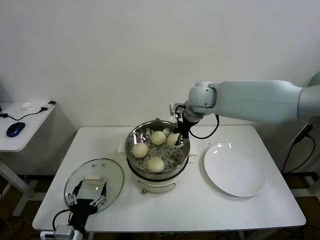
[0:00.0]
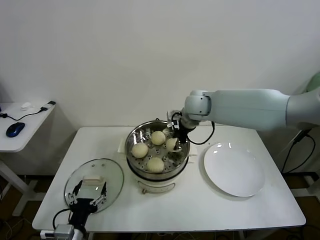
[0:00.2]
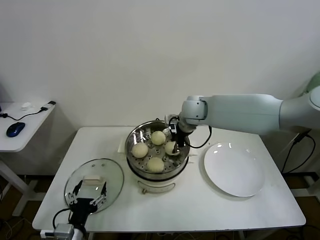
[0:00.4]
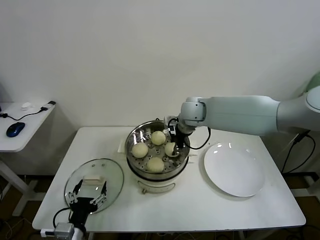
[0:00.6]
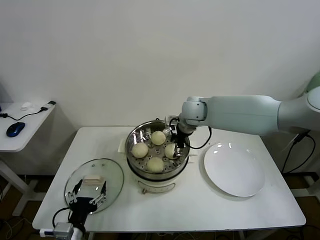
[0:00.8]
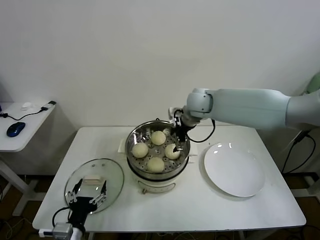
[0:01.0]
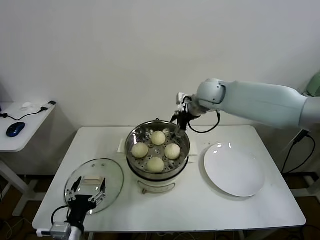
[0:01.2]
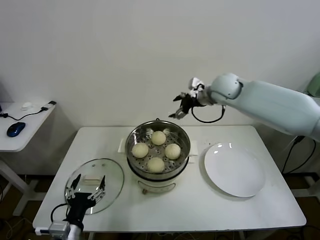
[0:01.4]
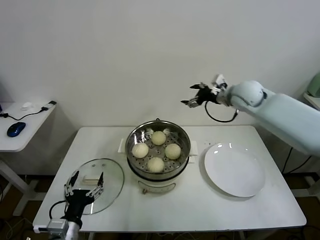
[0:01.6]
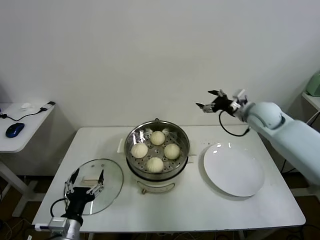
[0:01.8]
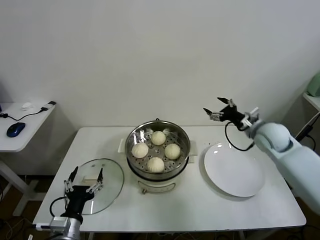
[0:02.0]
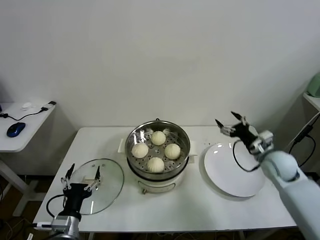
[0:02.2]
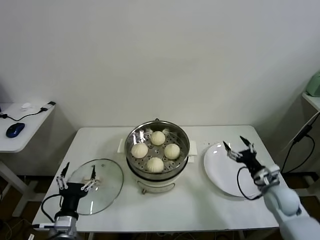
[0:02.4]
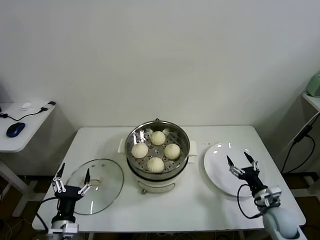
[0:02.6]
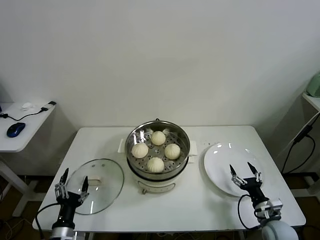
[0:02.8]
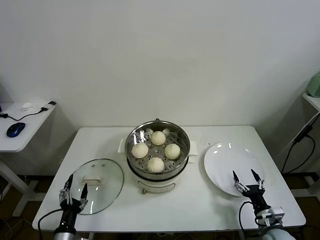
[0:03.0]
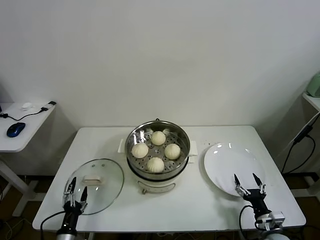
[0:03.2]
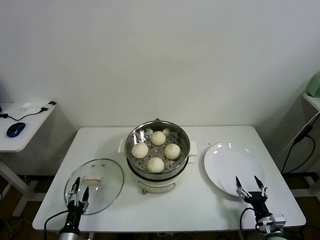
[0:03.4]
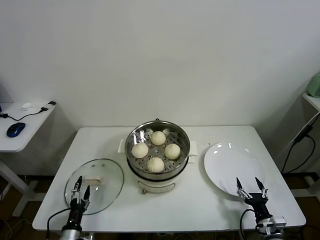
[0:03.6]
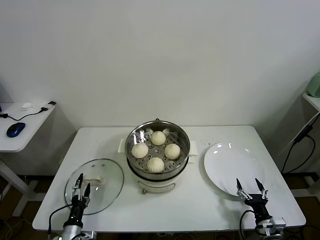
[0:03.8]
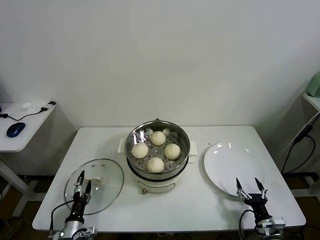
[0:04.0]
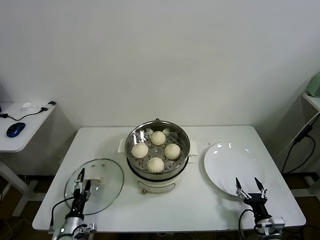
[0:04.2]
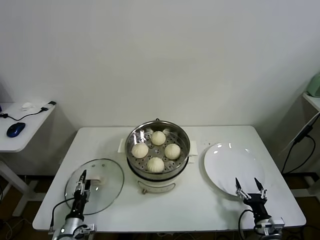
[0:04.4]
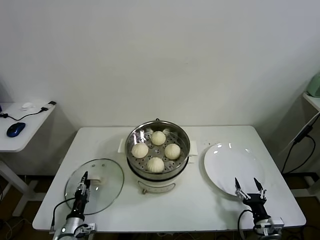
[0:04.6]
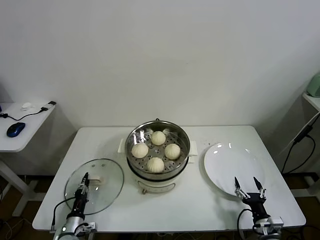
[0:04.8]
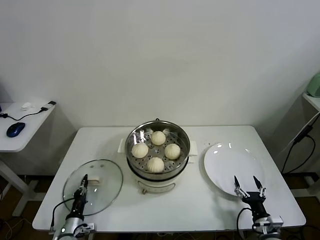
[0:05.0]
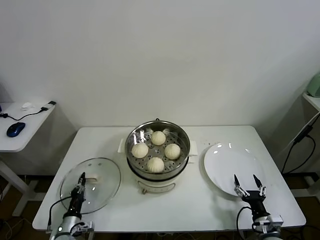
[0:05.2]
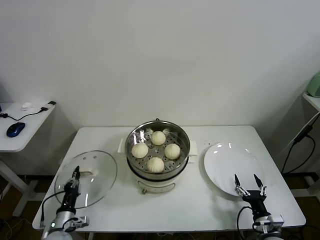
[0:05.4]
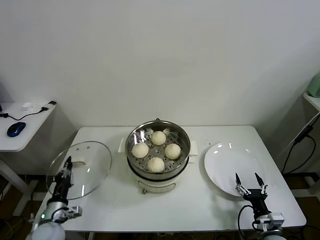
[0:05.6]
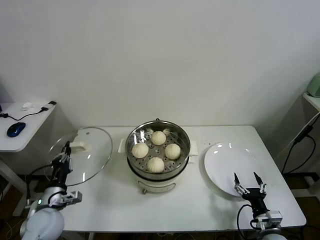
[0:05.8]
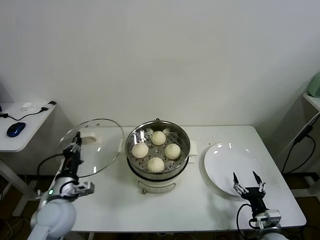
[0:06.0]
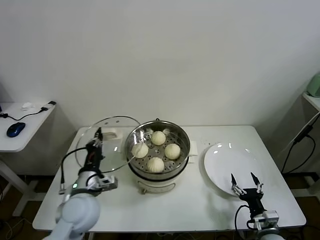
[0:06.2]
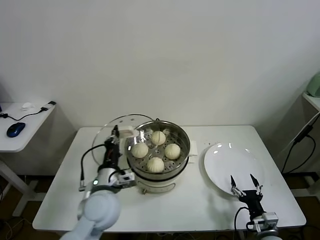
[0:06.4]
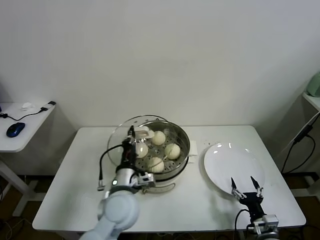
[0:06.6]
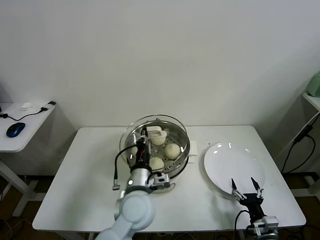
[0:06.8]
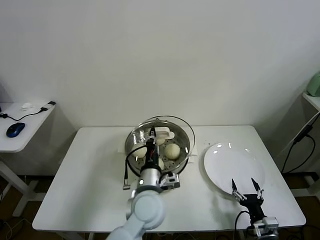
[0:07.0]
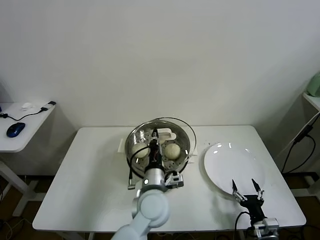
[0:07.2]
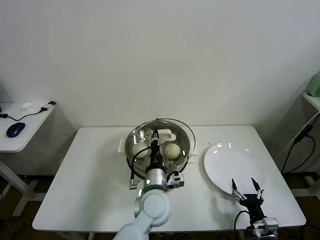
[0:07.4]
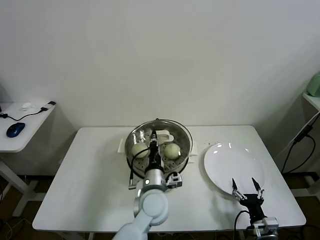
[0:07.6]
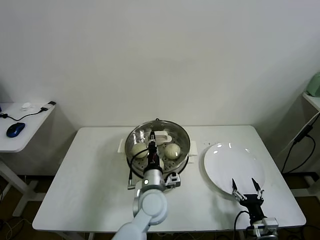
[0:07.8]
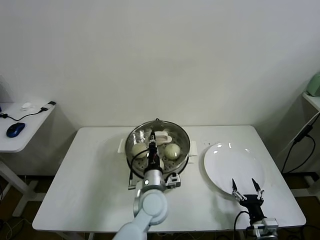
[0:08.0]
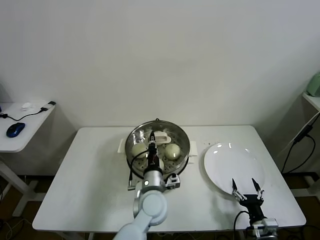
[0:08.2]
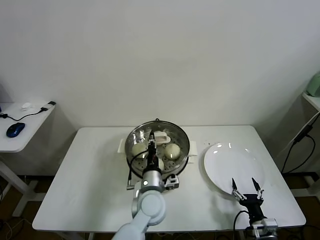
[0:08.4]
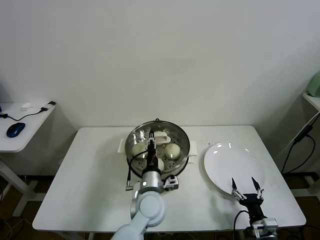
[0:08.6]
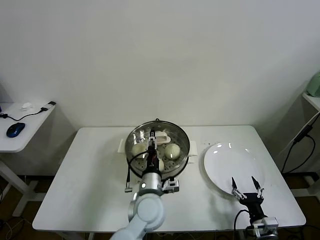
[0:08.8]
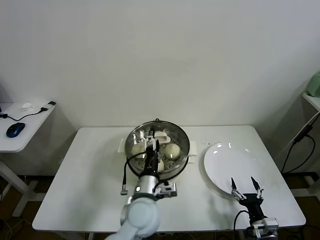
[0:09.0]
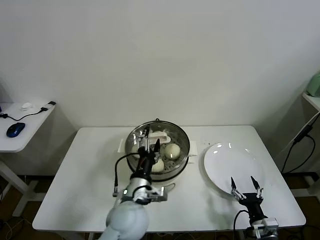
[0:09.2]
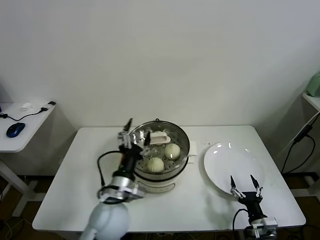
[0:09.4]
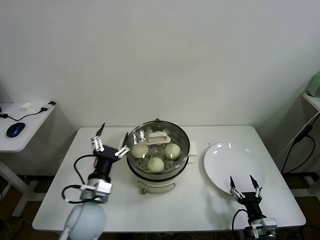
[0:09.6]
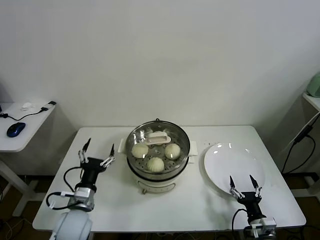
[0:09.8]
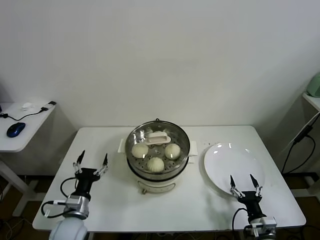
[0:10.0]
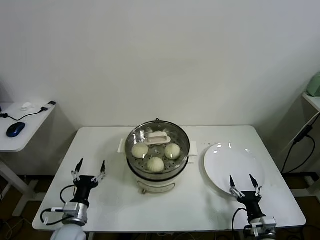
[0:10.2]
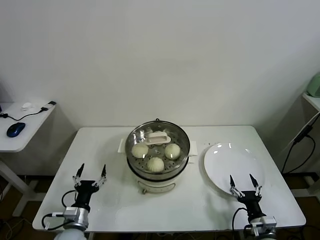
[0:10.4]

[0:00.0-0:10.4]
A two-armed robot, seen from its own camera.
Task of the whole recording: take steamed baozi put them in steamer.
Step, 0:01.0 to 0:05.0: Grasp the pot lid with left gripper.
Step, 0:05.2 to 0:09.0: Place the pot lid on the steamer with left gripper.
0:00.0 to 0:01.4: The right gripper heads to the right, covering roughly 10 cm, and opens.
0:01.4 to 0:03.0: The left gripper is displaced downward and to the left by some 15 cm. The right gripper travels downward, backward and to the right by about 50 cm.
0:03.0 to 0:04.4: The left gripper travels downward and forward by approximately 10 cm.
0:04.4 to 0:06.0: The left gripper moves upward, some 20 cm, and closes.
0:06.0 to 0:07.4: The left gripper shifts about 30 cm to the right.
0:07.4 to 0:09.0: The left gripper opens.
0:09.0 to 0:10.4: The left gripper heads to the left and downward, covering some 30 cm.

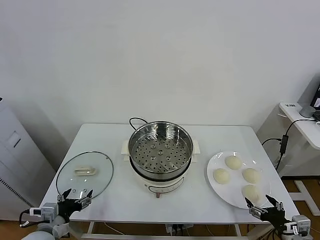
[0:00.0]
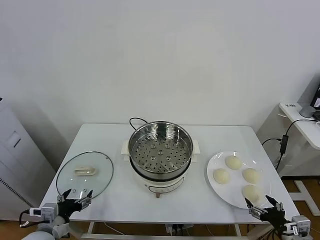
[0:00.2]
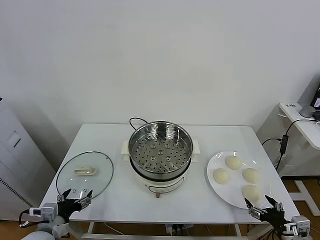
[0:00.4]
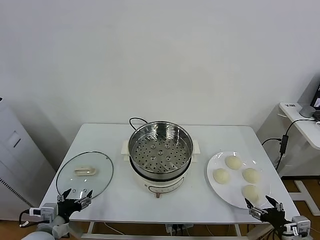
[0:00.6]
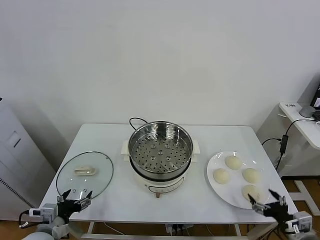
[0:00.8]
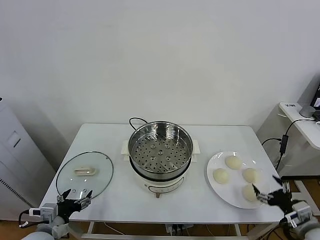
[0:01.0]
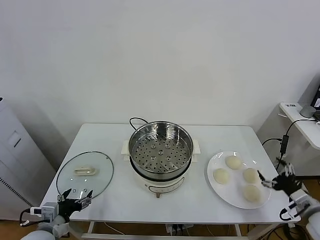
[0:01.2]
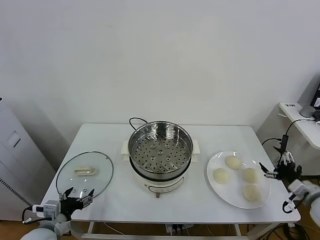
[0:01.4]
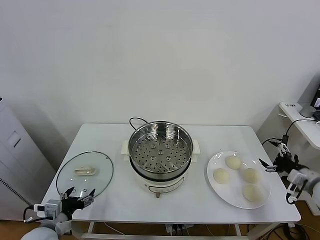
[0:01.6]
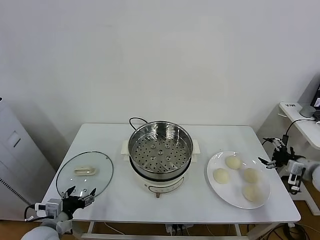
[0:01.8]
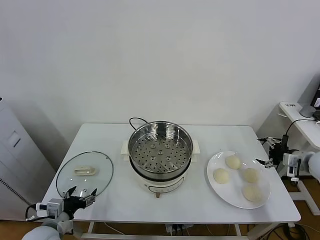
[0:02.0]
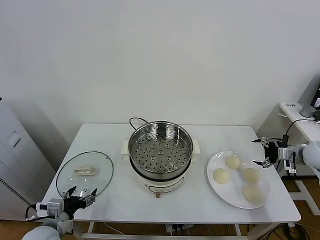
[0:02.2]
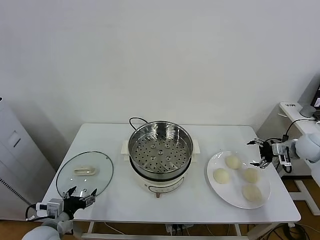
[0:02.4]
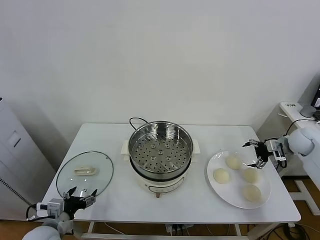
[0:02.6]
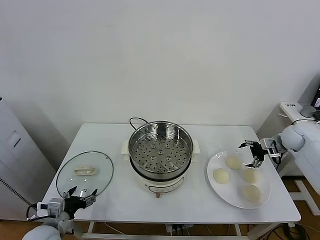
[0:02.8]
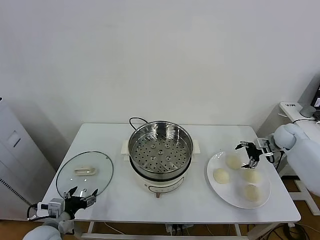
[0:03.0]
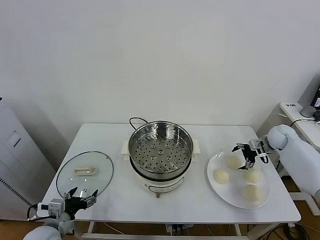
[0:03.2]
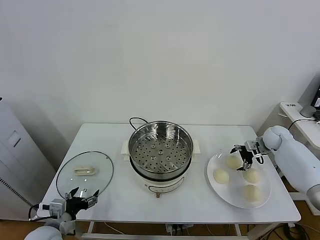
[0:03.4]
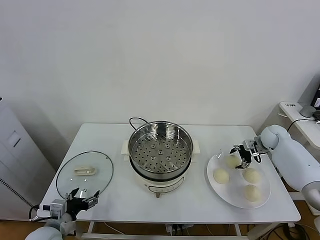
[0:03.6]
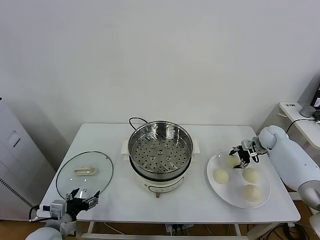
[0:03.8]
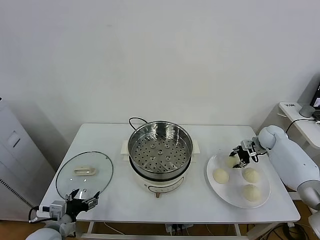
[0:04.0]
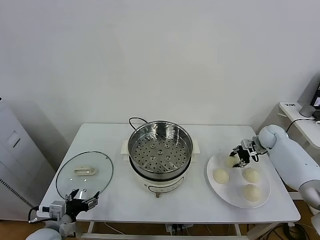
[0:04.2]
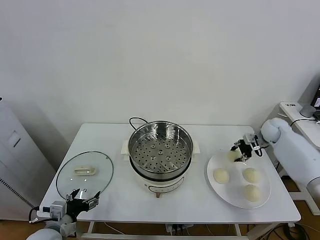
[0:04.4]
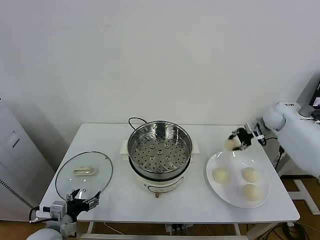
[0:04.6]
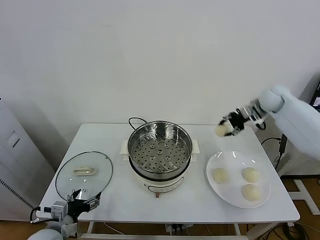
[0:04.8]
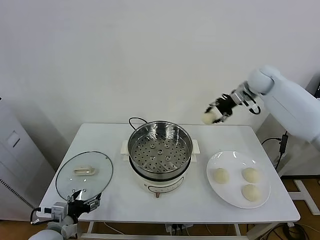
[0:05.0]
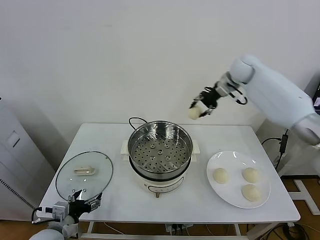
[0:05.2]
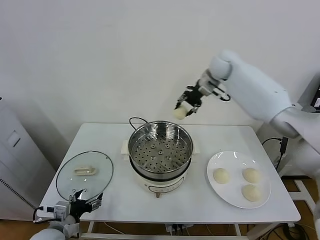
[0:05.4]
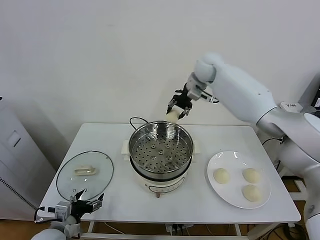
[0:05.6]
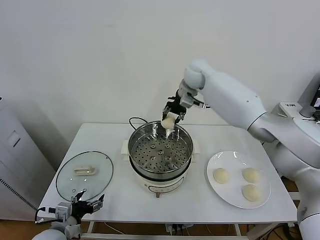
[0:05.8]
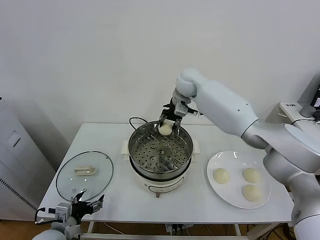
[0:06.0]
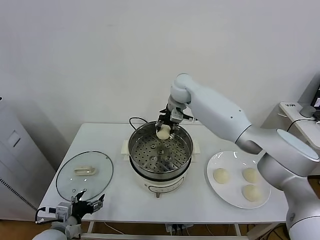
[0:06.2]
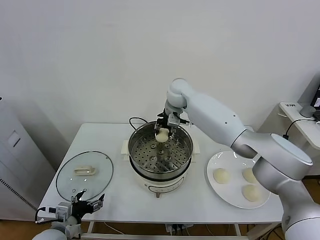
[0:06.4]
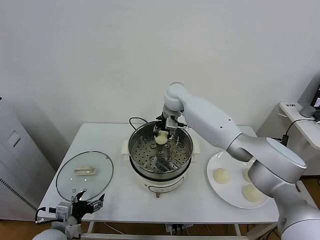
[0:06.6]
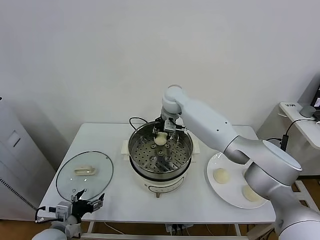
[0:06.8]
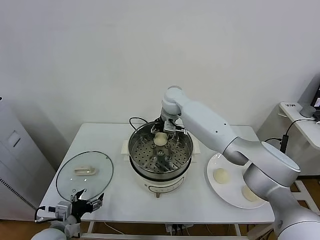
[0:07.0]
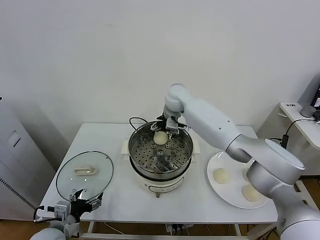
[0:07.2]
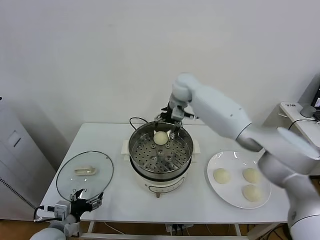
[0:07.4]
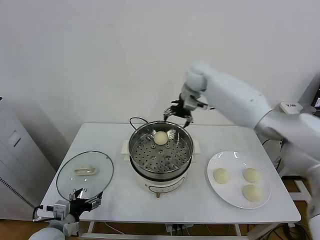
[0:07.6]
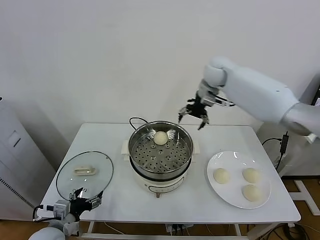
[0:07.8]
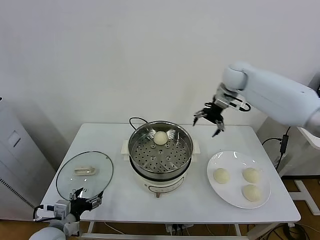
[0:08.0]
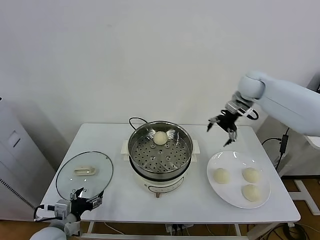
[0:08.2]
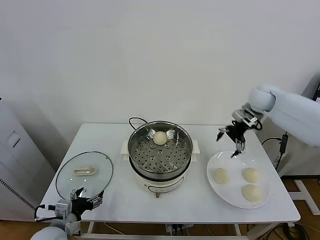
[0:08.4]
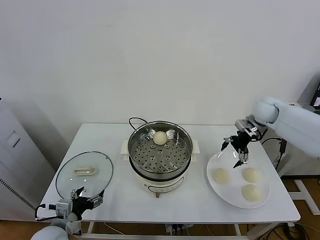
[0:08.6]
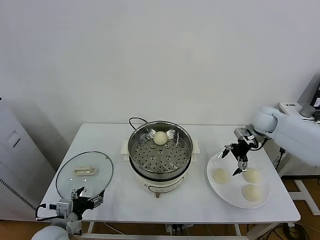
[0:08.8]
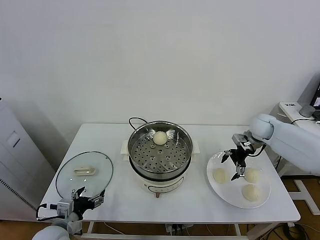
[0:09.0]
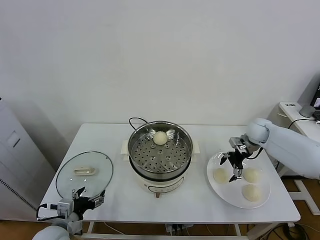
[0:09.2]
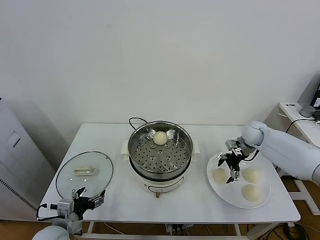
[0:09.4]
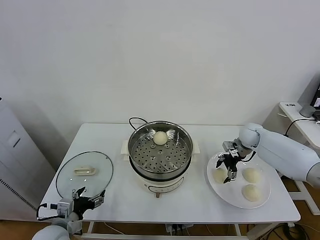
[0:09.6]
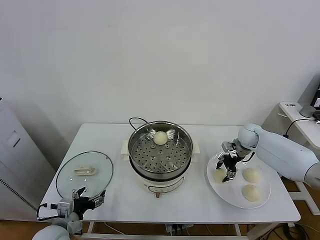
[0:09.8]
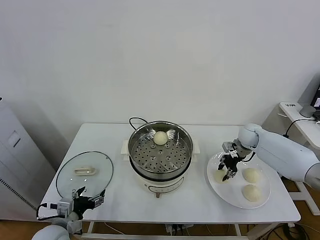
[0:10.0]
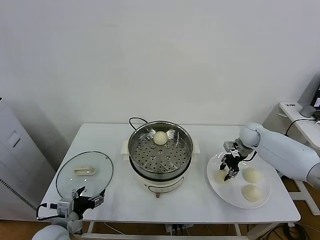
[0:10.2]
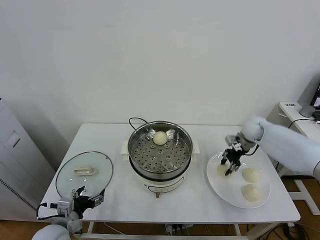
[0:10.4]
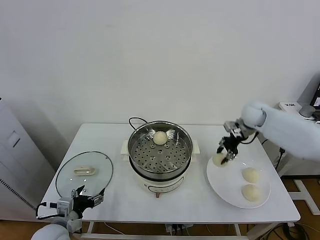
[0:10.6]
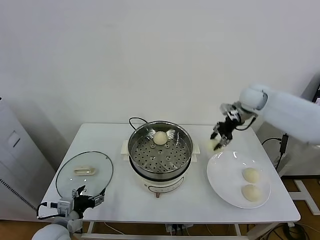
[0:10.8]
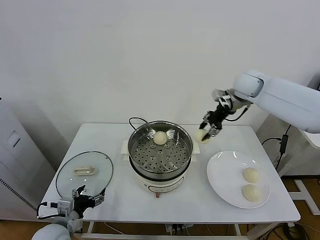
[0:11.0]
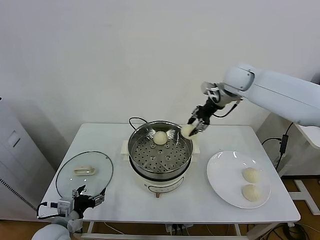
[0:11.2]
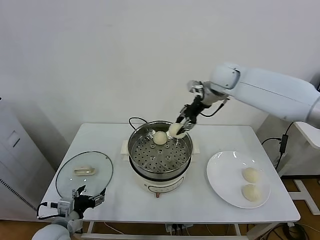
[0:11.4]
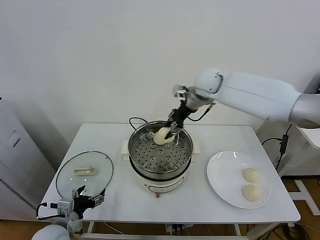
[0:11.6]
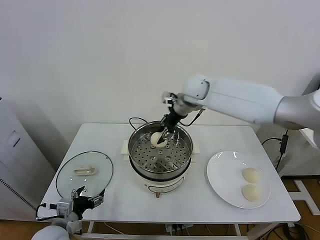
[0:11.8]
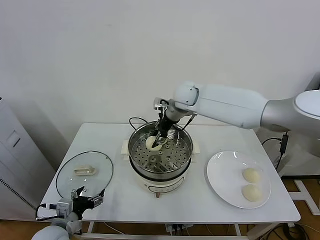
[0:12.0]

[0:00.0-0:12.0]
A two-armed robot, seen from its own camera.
Task of the whole recording: take steamed baozi put them in steamer.
Step, 0:00.0 to 0:04.0: Grasp the baozi in the plate with right gripper.
Step, 0:04.2 to 0:07.0: Place the baozi on the steamer with right gripper.
Step, 0:07.4 to 0:09.8: Grasp the baozi in the plate with right gripper.
0:01.6 to 0:03.0: The right gripper moves forward, about 20 cm.
0:03.0 to 0:04.4: The right gripper changes place by roughly 5 cm, and closes up.
0:04.4 to 0:06.0: The right gripper shifts approximately 35 cm to the left.
0:06.0 to 0:07.6: The right gripper travels to the right by about 5 cm, and opens up.
0:07.6 to 0:09.0: The right gripper moves to the right and downward, approximately 30 cm.
0:09.0 to 0:10.4: The right gripper closes up.
0:10.4 to 0:12.0: The right gripper heads to the left, covering approximately 30 cm.
